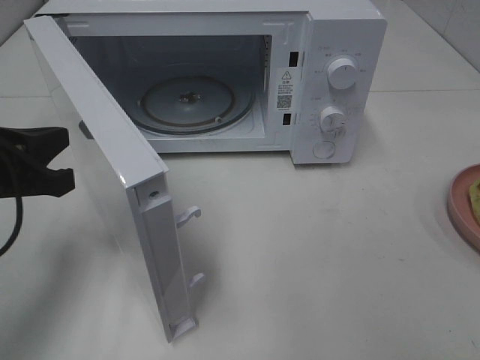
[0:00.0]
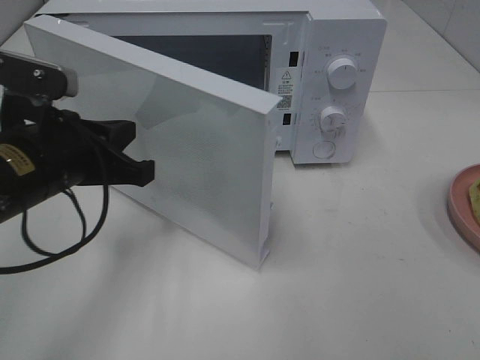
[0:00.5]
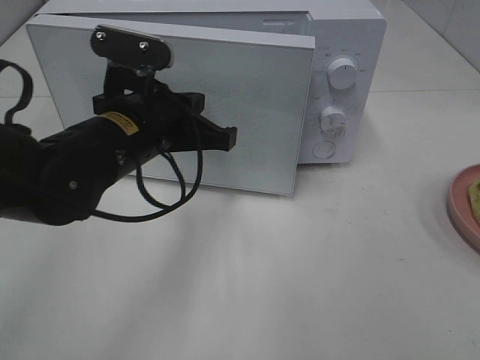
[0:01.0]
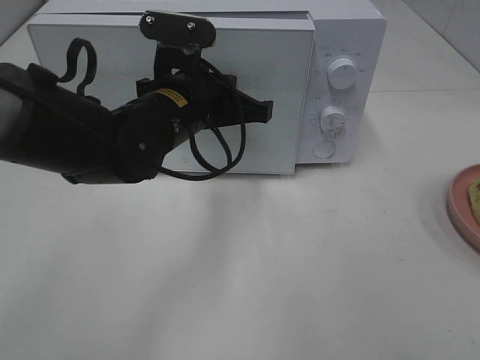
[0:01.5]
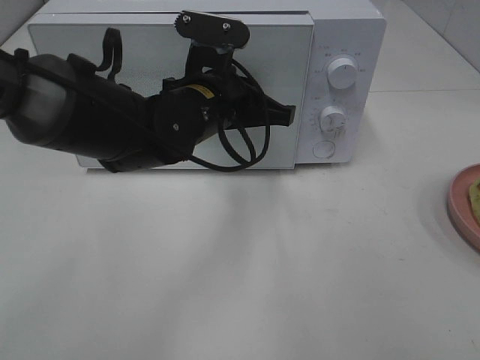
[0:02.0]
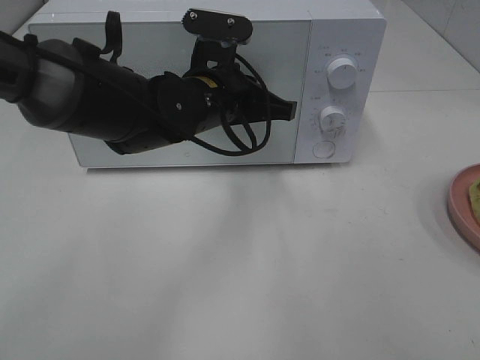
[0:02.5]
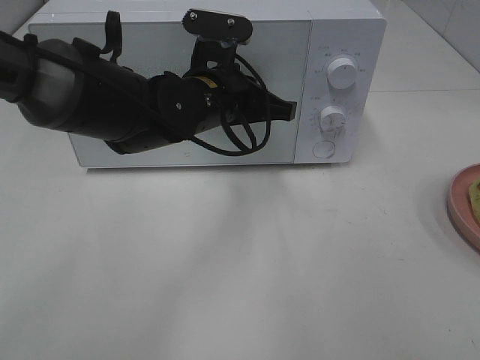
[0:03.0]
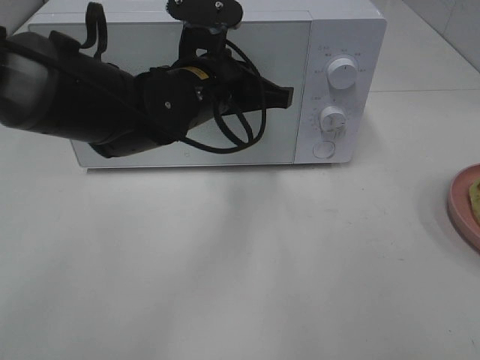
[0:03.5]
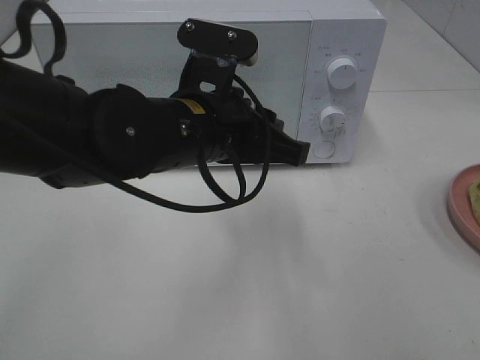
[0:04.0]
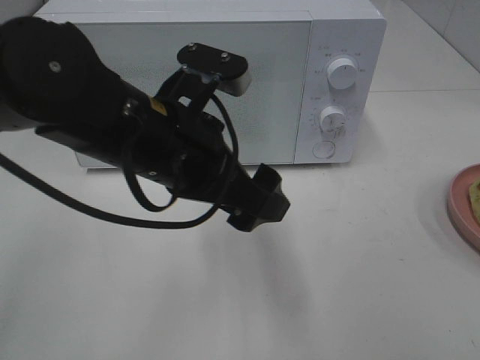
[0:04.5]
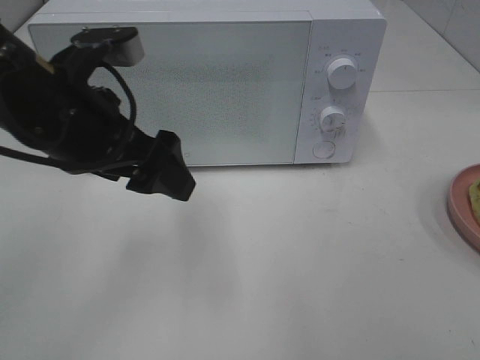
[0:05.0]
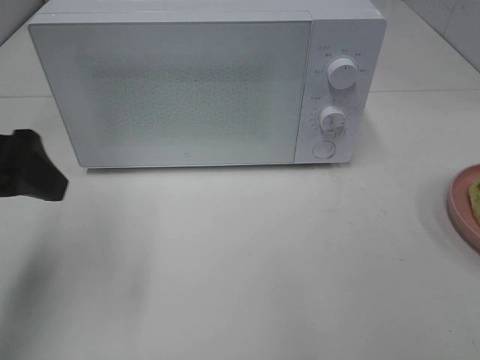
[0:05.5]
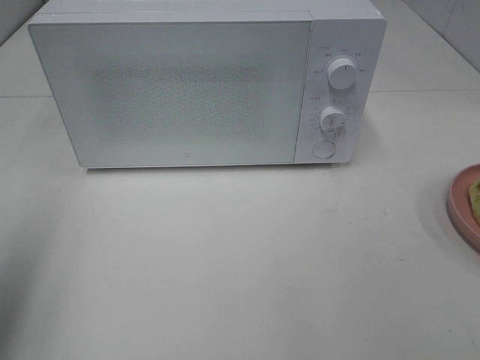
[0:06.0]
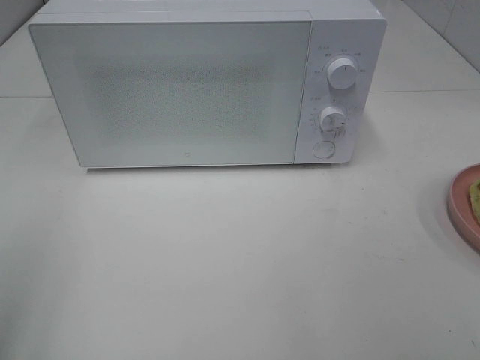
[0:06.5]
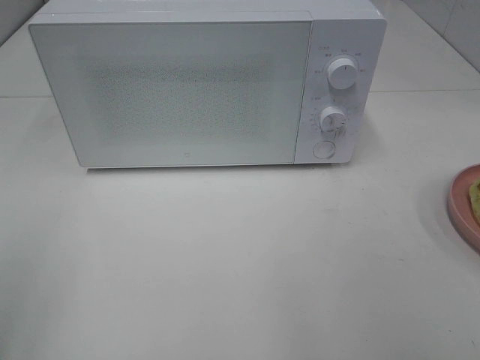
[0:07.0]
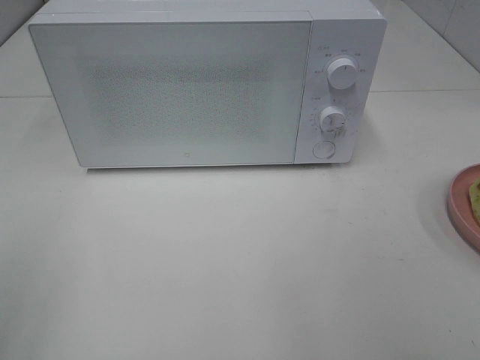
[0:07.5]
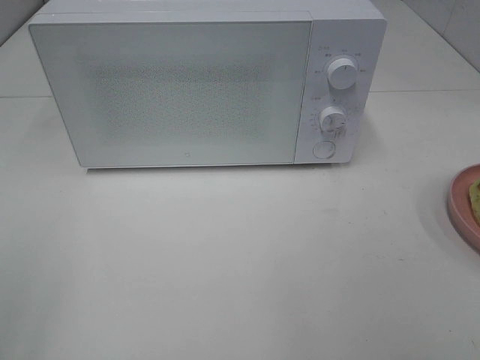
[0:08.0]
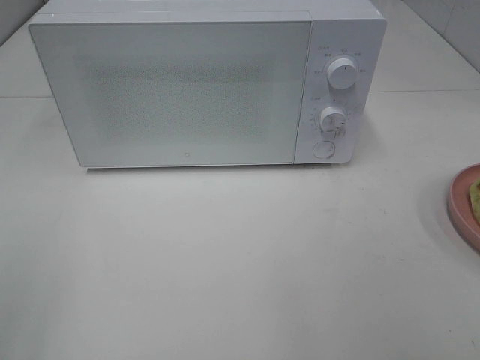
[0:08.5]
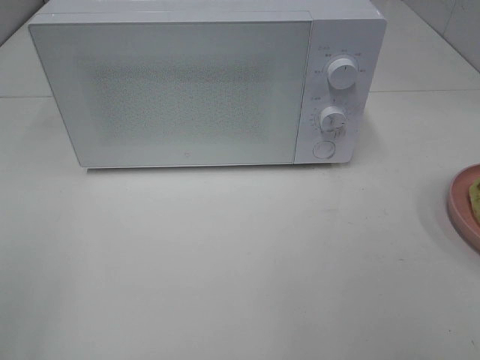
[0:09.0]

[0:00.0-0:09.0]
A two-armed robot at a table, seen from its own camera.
Task of the whole recording: Heat Sandwich.
Step, 0:00.0 to 0:03.5: Left hand: close the microwave door.
0:00.0 to 0:02.0: The left gripper goes roughly 25 cm to the right and forward.
0:02.0 to 0:04.5: The left gripper heads backward, covering some 10 cm, and opens its fingers.
0:04.5 to 0:07.0: The left gripper heads to the left and backward, covering approximately 30 cm.
